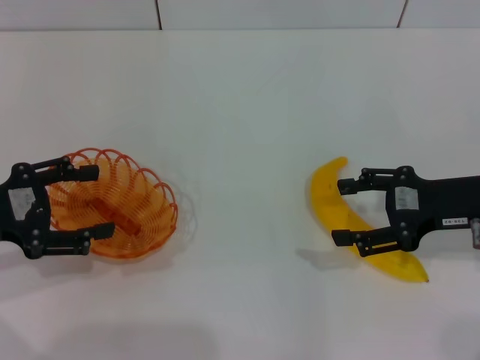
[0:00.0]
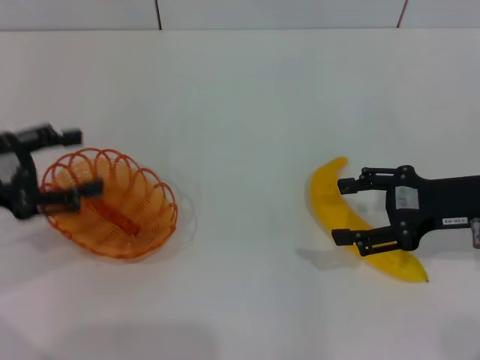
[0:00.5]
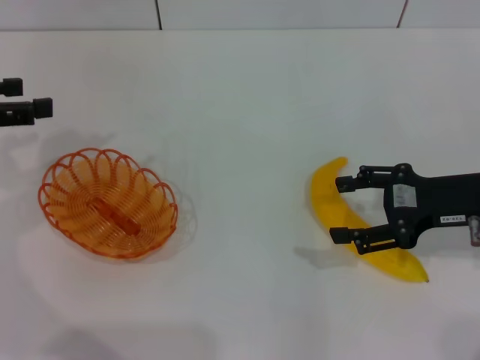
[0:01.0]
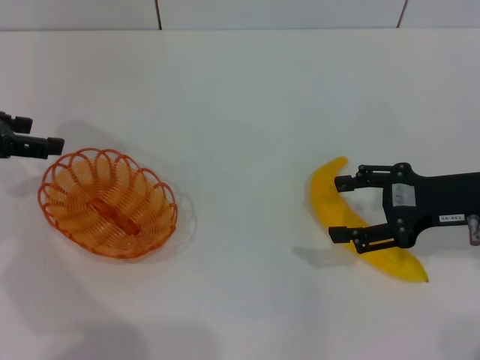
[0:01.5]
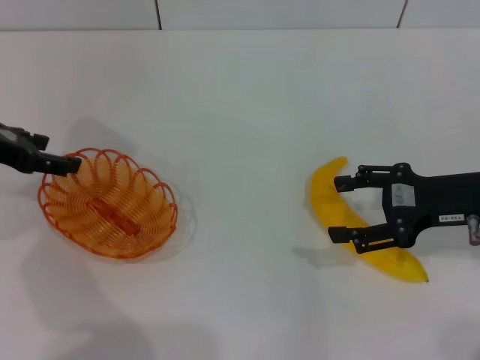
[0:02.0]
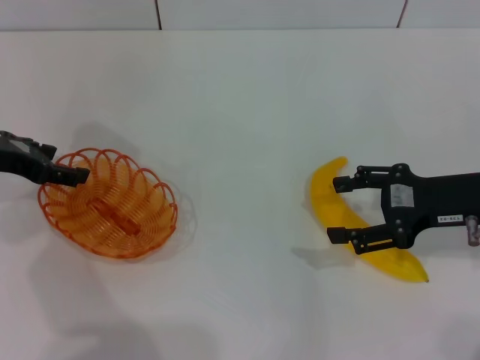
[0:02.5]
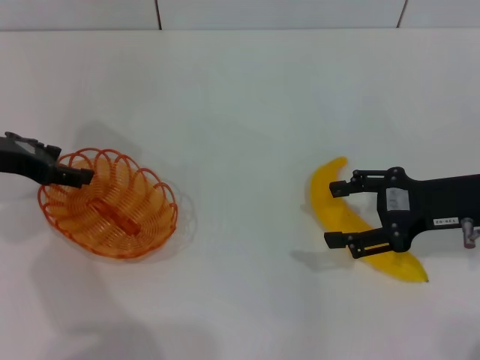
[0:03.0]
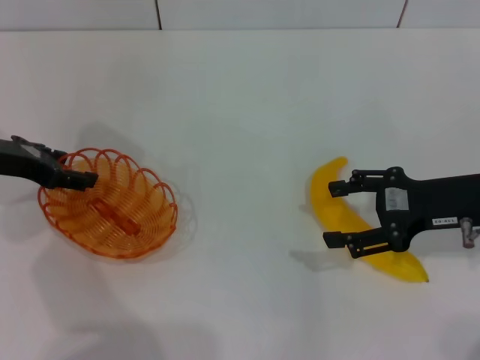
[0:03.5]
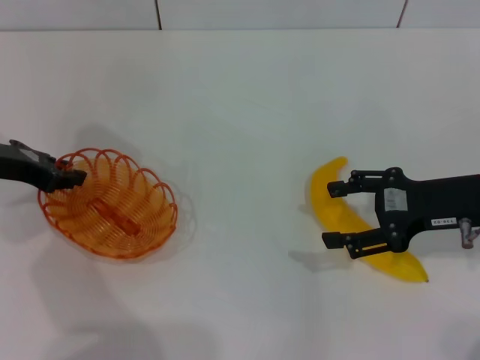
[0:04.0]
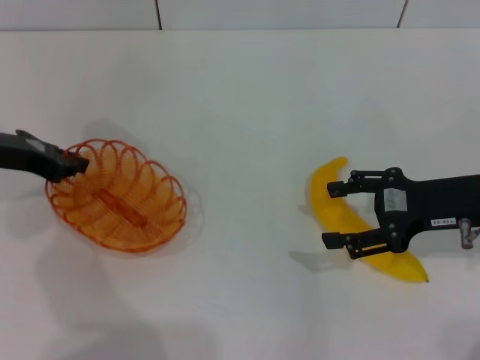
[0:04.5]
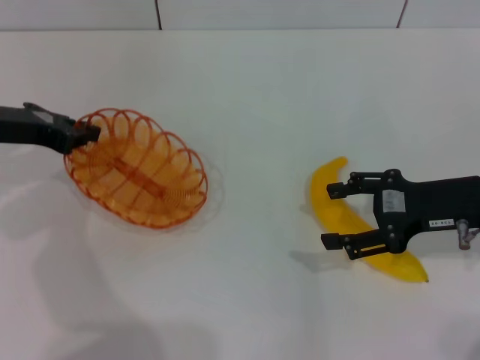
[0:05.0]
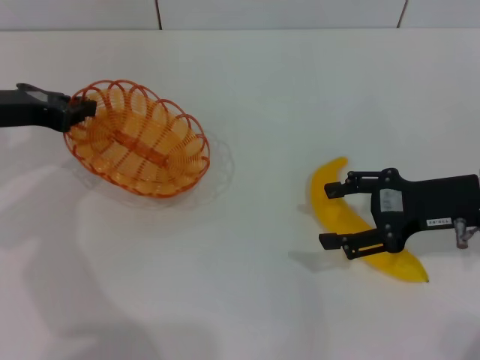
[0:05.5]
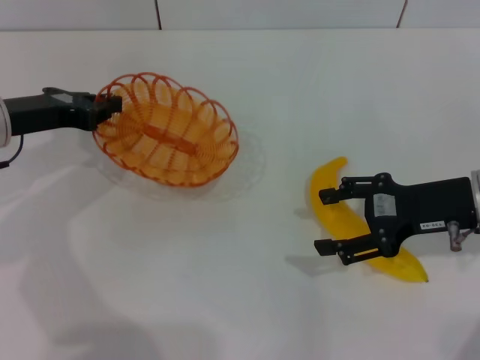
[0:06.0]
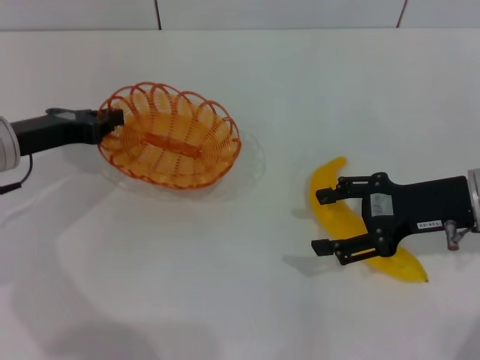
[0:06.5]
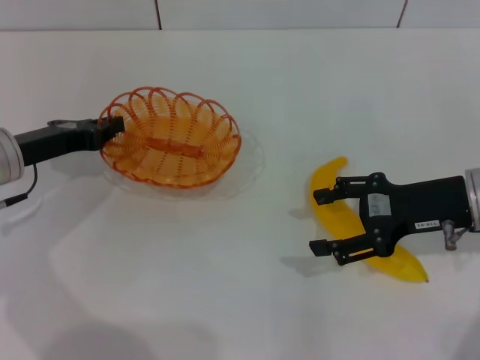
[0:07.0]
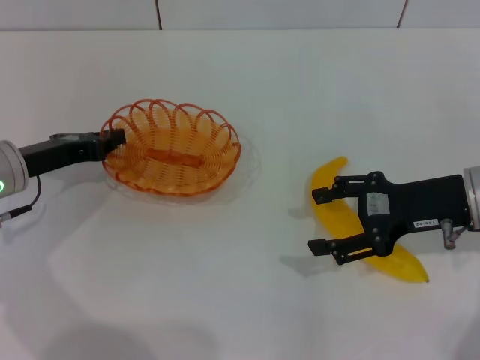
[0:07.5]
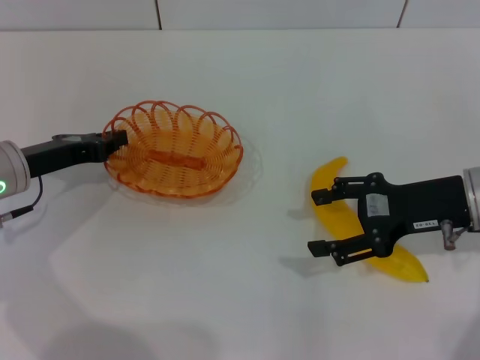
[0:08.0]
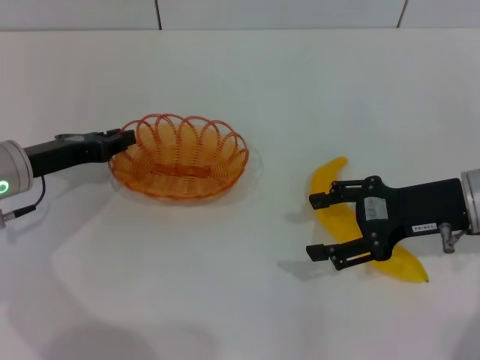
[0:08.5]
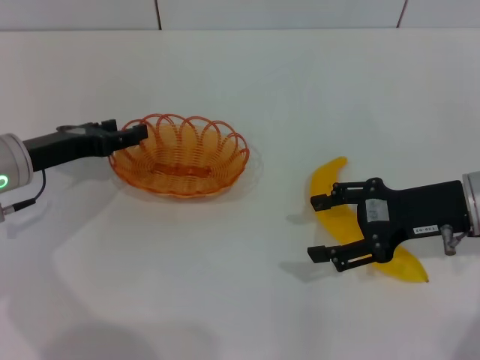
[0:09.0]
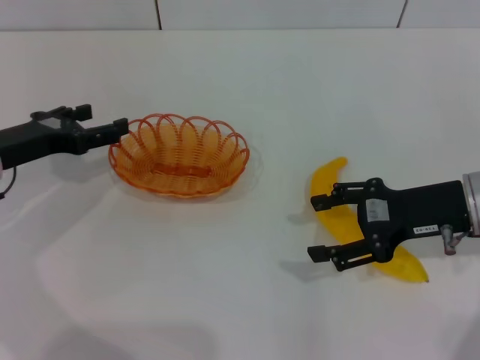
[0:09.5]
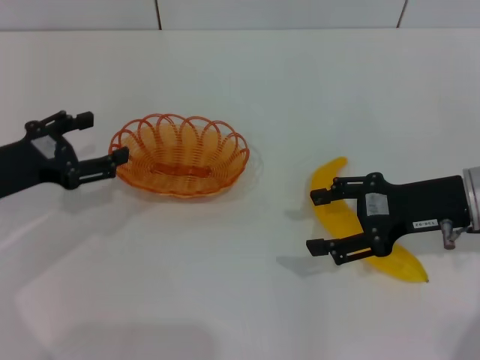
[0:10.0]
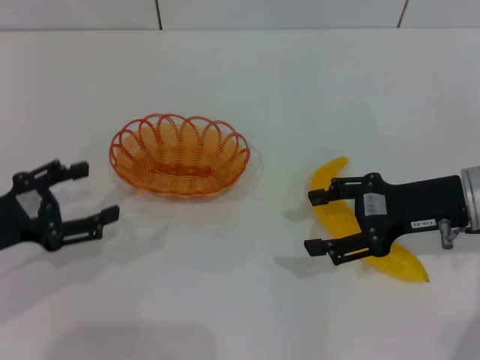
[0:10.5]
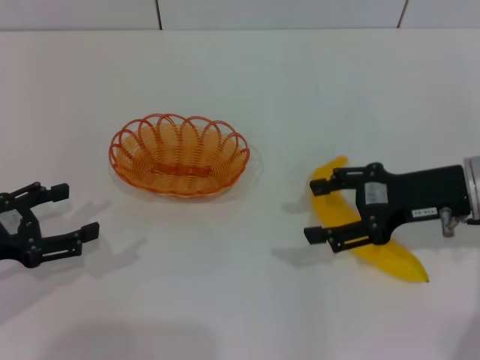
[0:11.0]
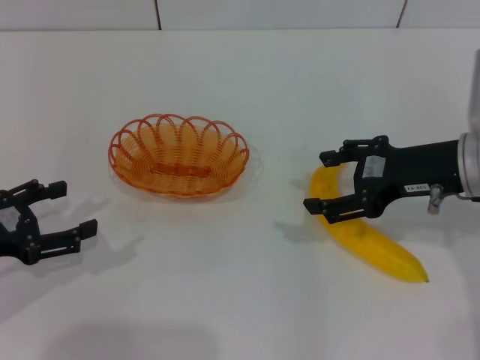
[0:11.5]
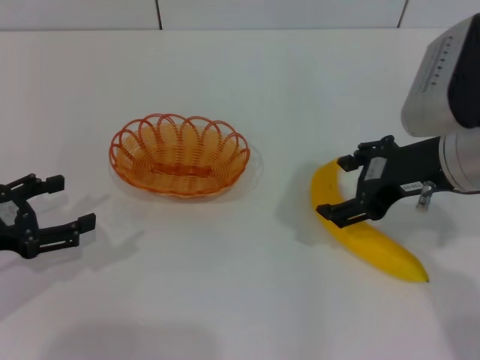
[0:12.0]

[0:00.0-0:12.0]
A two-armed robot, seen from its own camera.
Step, 0:00.0 to 0:05.0: Pick up the basket with the left gripper.
Step, 0:05.5 to 0:08.5: Place the basket in the center of view with the left gripper.
0:00.0 to 0:02.0: The left gripper heads forward, covering roughly 10 cm.
0:02.0 to 0:04.0: The left gripper closes up.
0:04.0 to 0:06.0: The left gripper closes.
0:06.0 to 0:08.0: The left gripper travels downward by some 5 cm.
0:08.0 to 0:10.0: The left gripper changes place by roughly 5 cm, and opens up.
0:10.0 to 0:12.0: The right gripper shifts roughly 10 cm upward and to the left, while the left gripper goes about 5 cm backward.

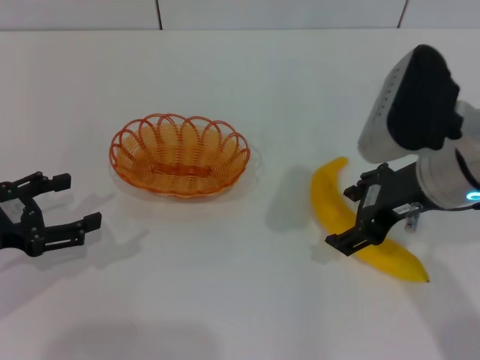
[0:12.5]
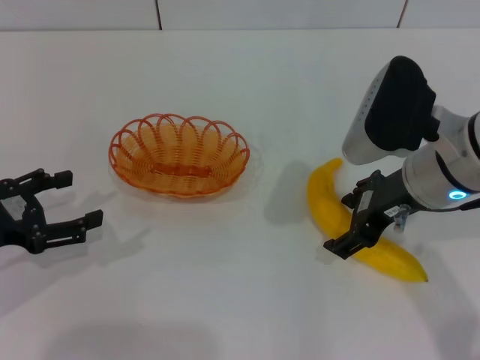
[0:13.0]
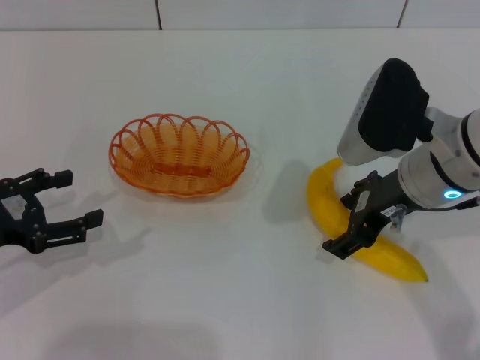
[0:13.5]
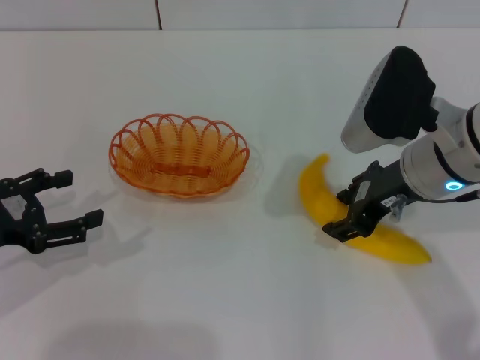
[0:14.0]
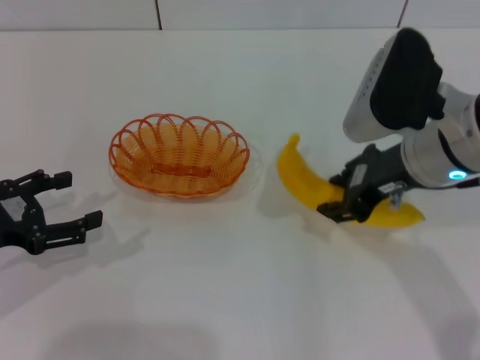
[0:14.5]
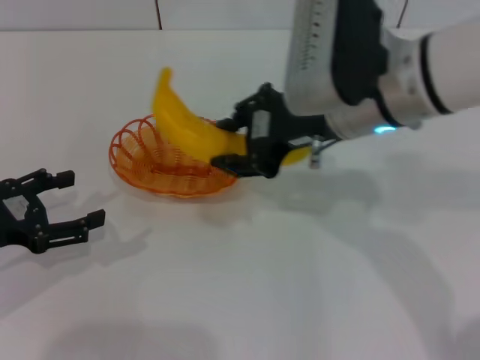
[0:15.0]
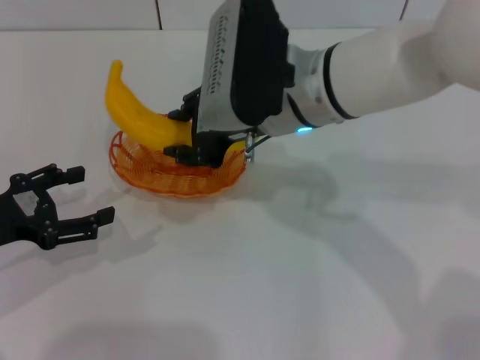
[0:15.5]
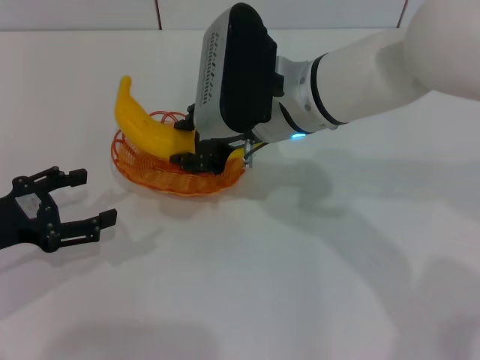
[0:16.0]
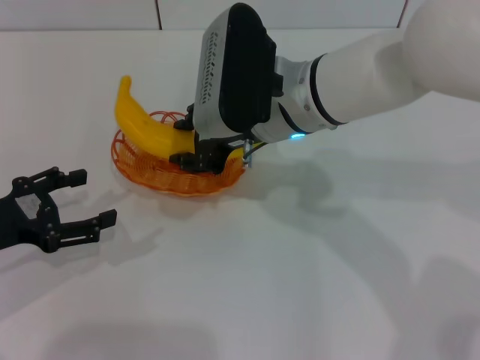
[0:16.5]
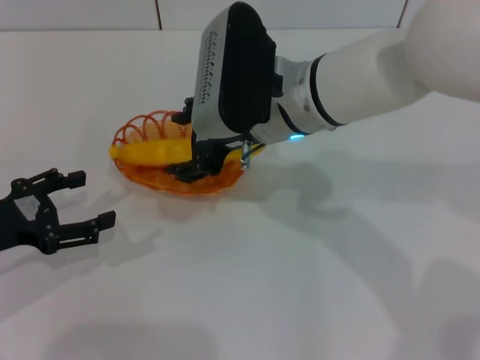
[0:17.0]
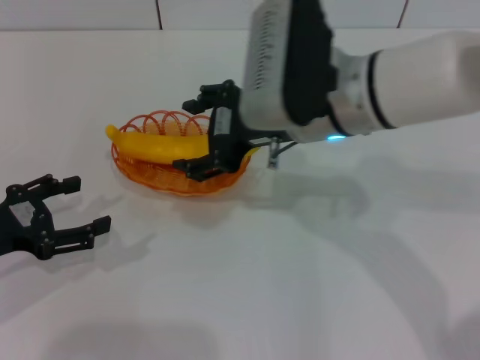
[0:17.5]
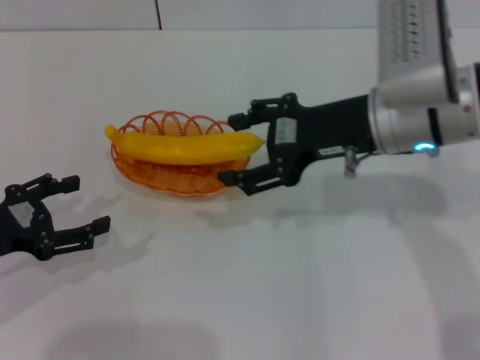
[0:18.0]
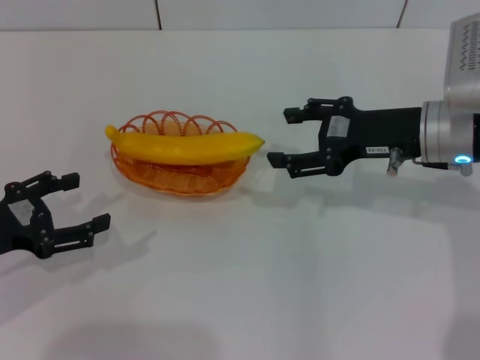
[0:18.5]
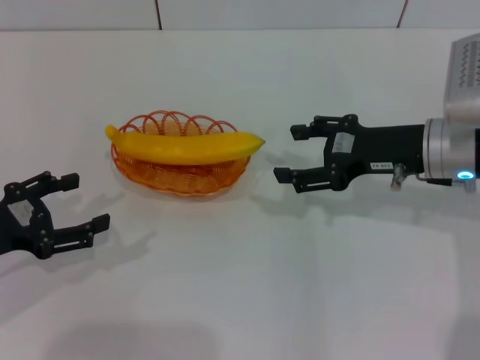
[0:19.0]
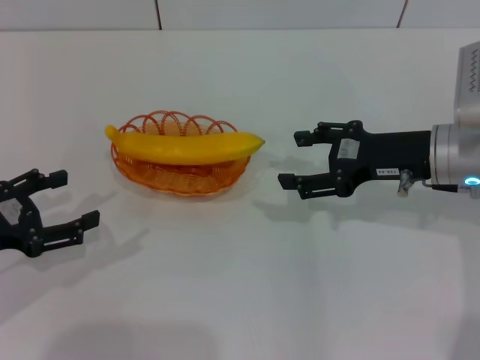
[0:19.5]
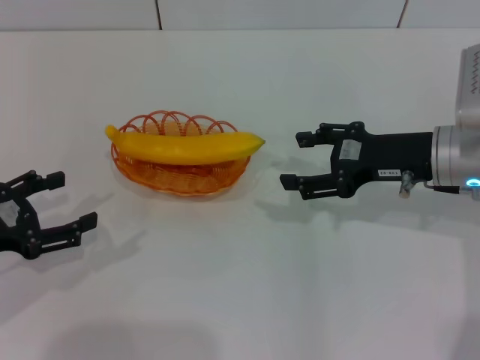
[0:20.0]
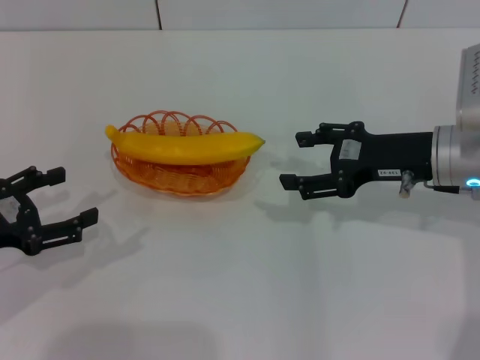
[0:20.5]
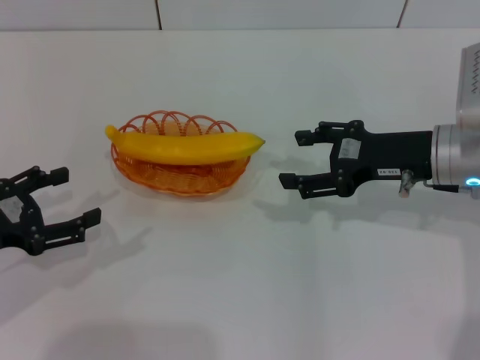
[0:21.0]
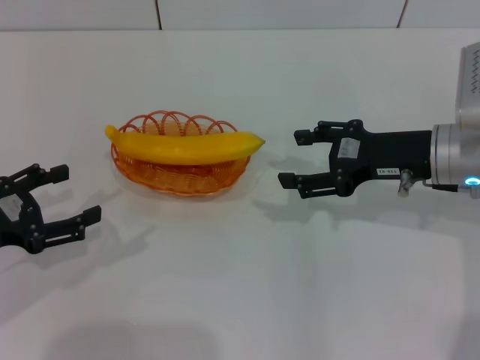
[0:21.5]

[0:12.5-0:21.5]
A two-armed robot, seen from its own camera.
Step, 0:12.5 to 0:14.5: Pick up the banana with the right gripper.
Step, 0:15.0 to 0:17.0: Place the banana into the basket with the right gripper.
0:12.5 to 0:14.5: The right gripper closes.
0:14.5 to 0:17.0: The right gripper shifts roughly 10 cm to the left.
0:17.0 to 0:19.5: The right gripper heads to the right, covering approximately 20 cm, and opens its fingers.
0:19.5 to 0:21.5: Both grippers stay put.
